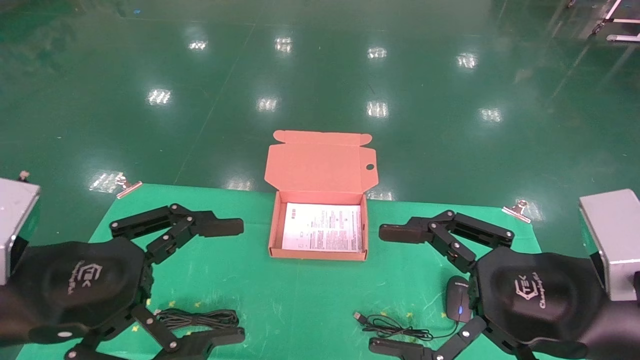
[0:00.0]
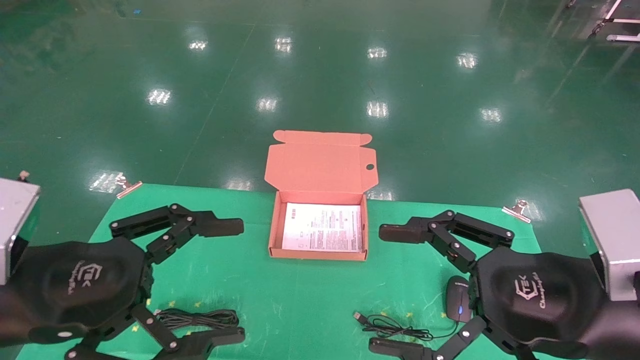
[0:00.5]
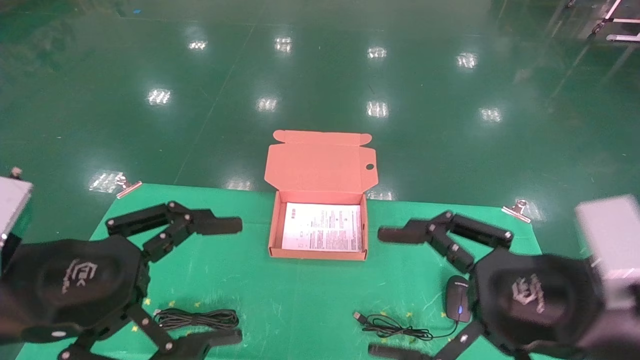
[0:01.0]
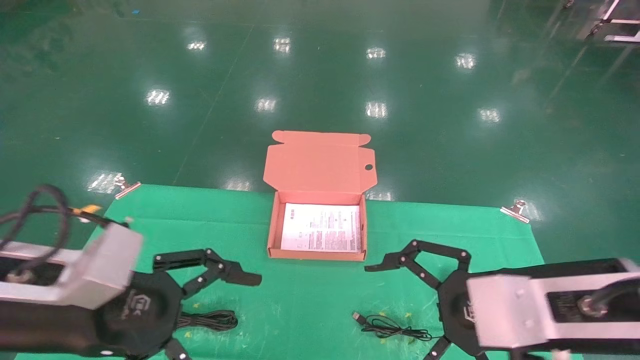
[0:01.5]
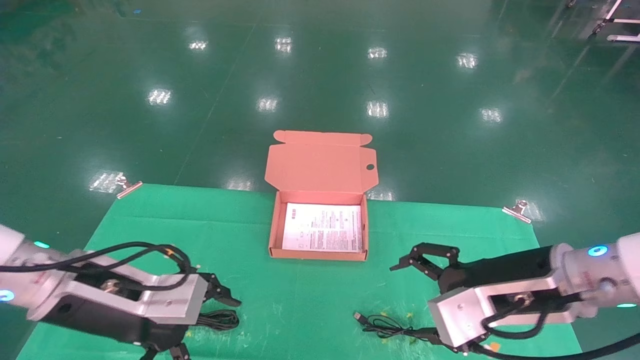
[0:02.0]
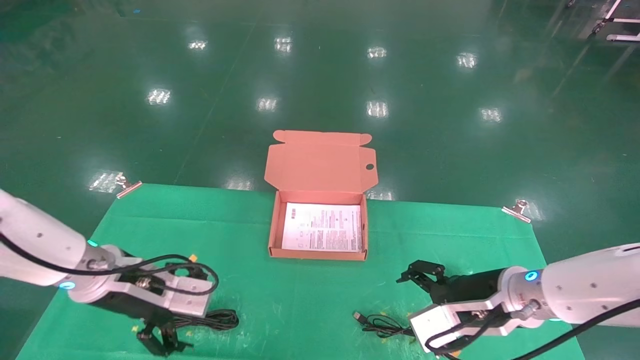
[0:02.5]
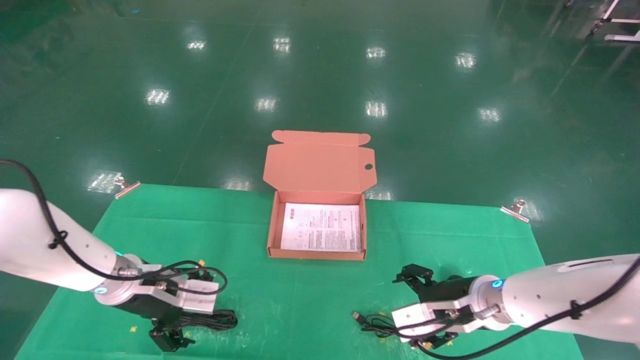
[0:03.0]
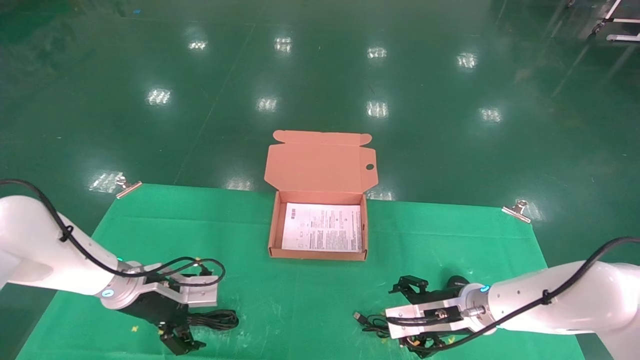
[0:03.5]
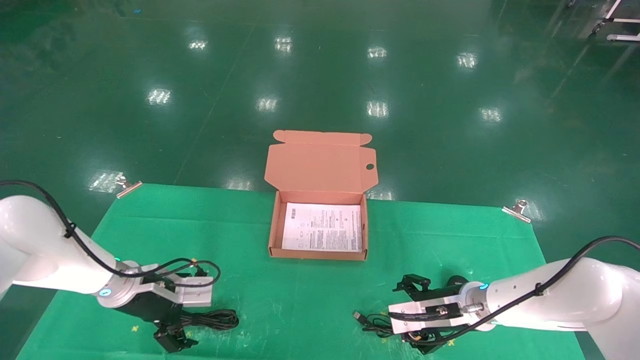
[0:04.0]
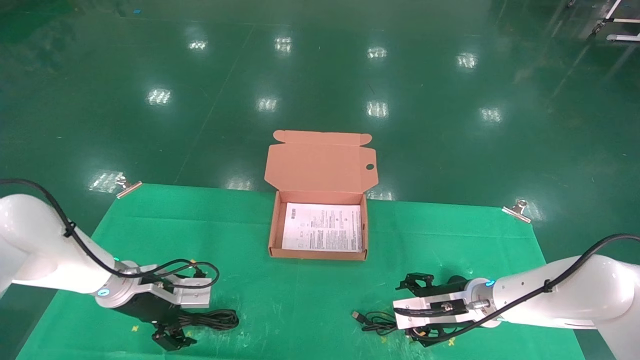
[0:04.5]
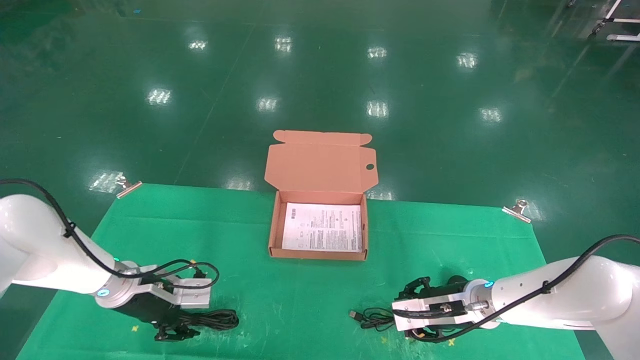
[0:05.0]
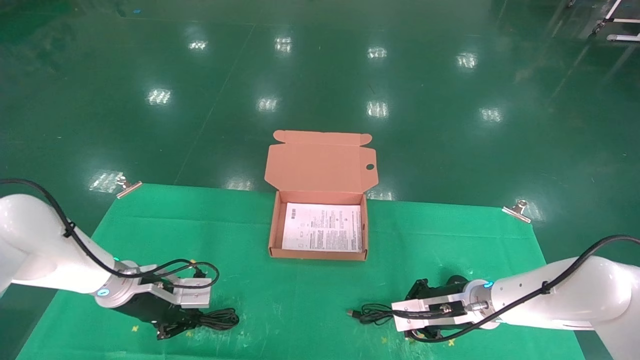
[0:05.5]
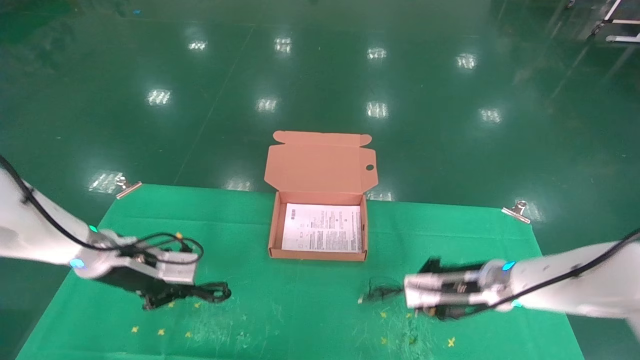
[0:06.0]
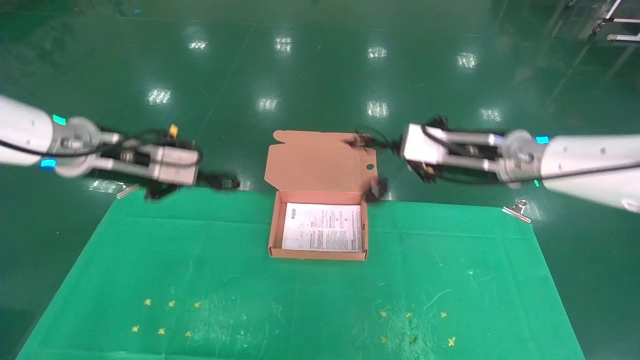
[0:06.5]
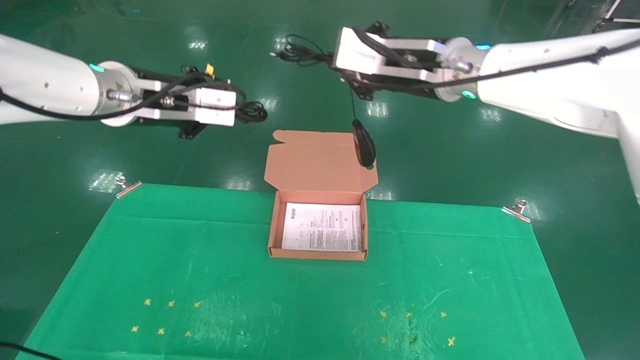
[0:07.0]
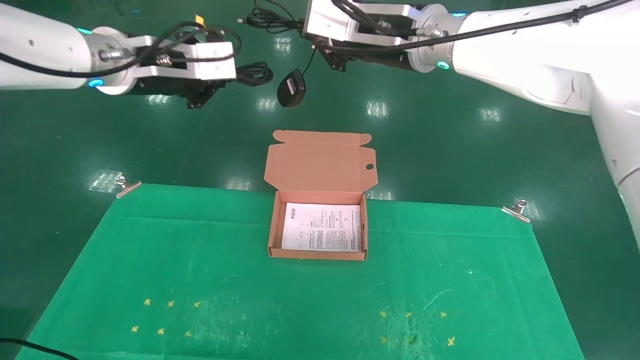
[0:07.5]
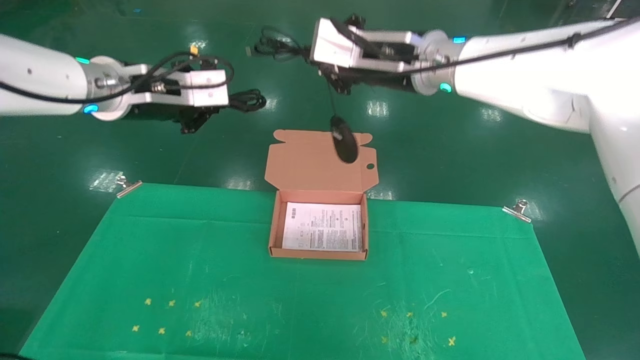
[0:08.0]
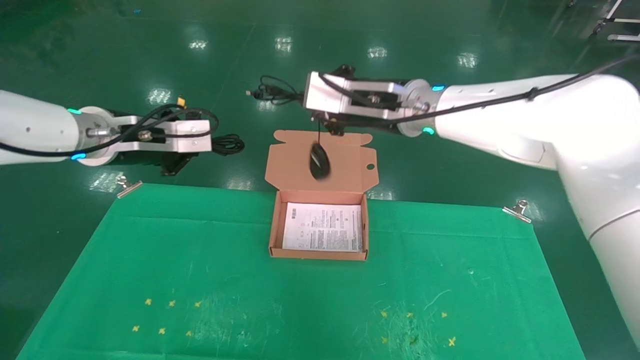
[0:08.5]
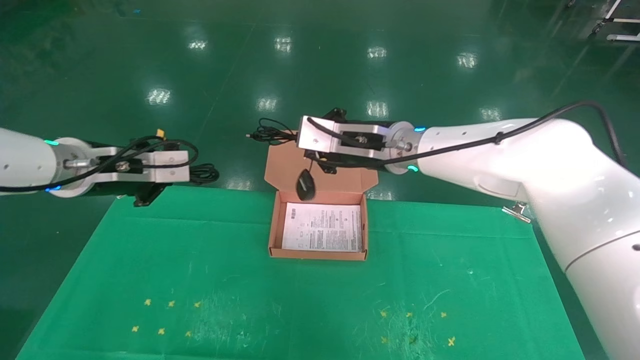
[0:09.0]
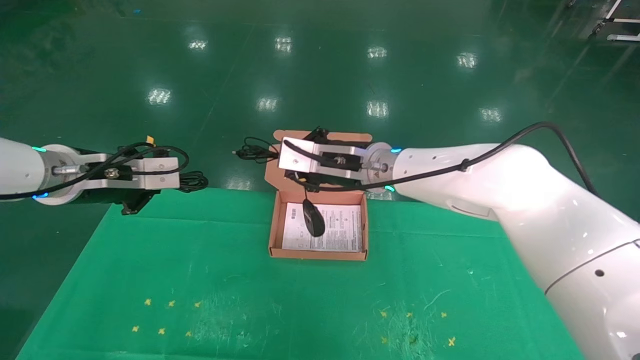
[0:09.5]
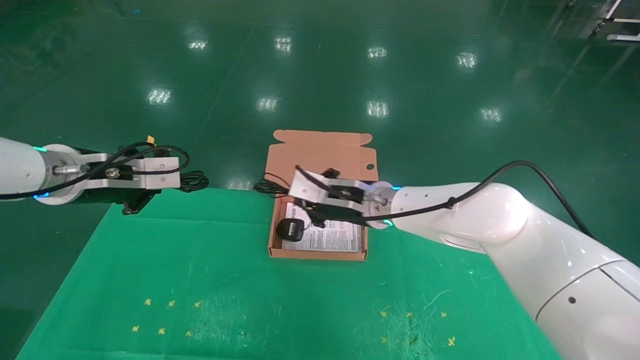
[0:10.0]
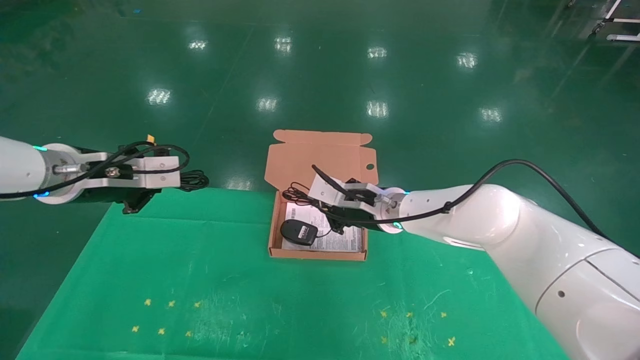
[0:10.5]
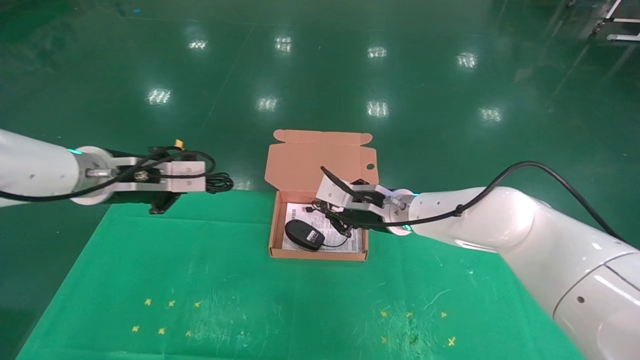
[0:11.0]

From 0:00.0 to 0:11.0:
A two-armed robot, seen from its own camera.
Task of the whole recording: grasp data cable left put into box grasp mouse right put into box.
Step, from 0:01.0 to 0:06.5: Grab and pick up both the mouse and power cord from the accessory packaging area at the same time.
From 0:00.0 to 0:02.0: The left gripper is displaced forward and downward by approximately 10 cm, while the right gripper travels forward by roughly 10 cm.
From 0:02.0 to 0:03.5: The right gripper travels downward and forward by roughly 15 cm. The left gripper is displaced forward and downward by some 15 cm.
From 0:03.5 to 0:05.5: The left gripper closes its fingers; the right gripper closes.
From 0:05.5 to 0:07.5: Both grippers move upward, some 35 cm.
From 0:07.5 to 0:09.0: The right gripper moves downward, about 15 cm, while the left gripper travels downward and to the left by about 15 cm.
From 0:09.0 to 0:11.0: The right gripper goes about 10 cm downward.

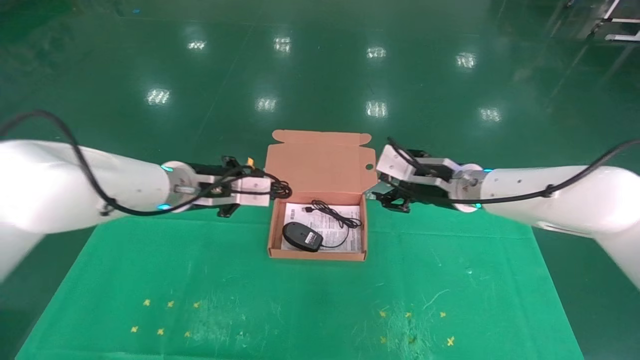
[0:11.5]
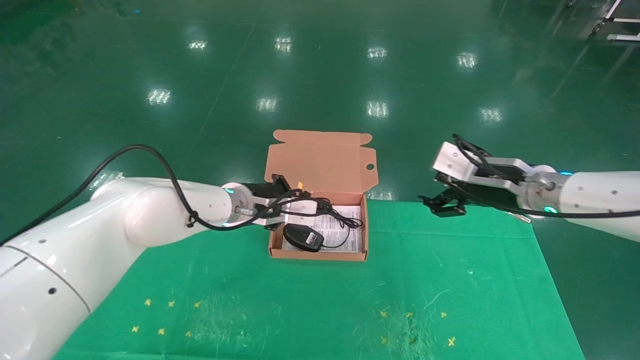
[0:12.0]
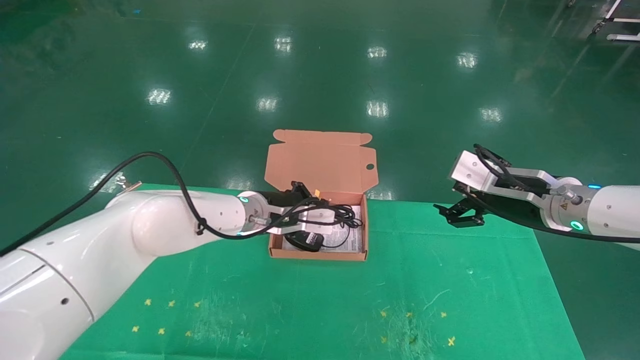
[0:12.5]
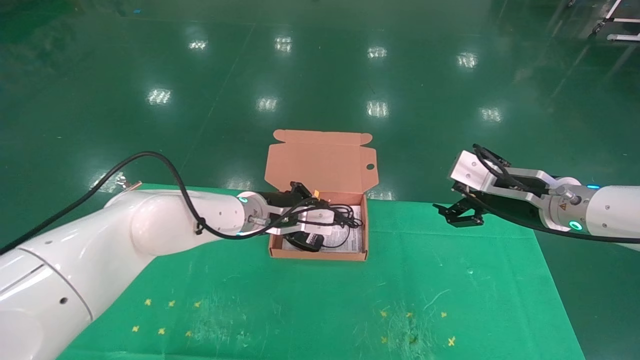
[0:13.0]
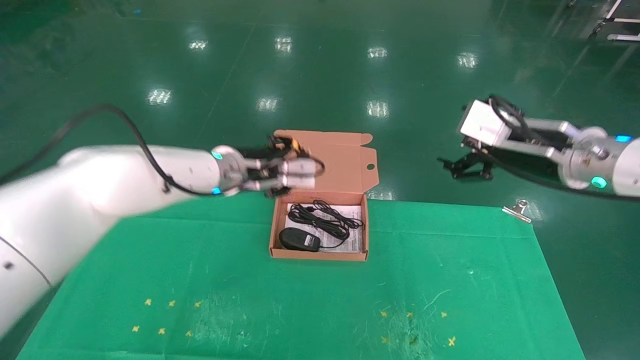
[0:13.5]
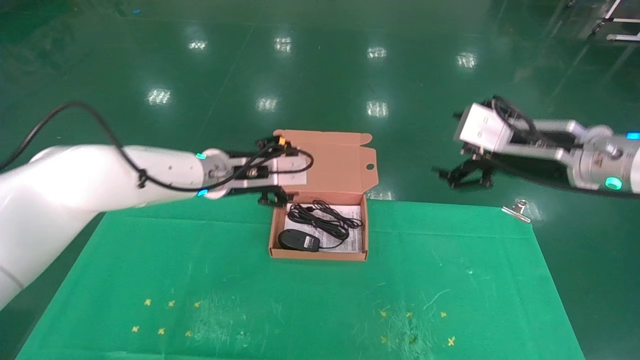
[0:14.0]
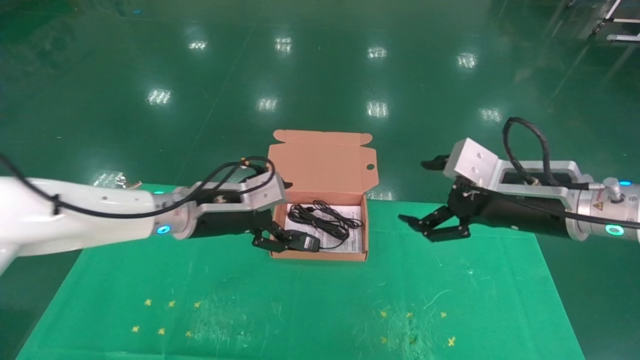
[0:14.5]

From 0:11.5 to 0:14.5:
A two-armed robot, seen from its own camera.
Task of the whole recording: grasp data cable left put into box grasp mouse right put into box.
Step, from 0:11.5 to 0:13.5: Place the mouse and power cord into the box.
From 0:11.5 to 0:13.0: The left gripper moves to the right and downward, approximately 10 cm. Meanwhile the right gripper moves to the right and backward, approximately 10 cm, and opens its fingers.
From 0:13.0 to 0:14.5: The left gripper goes about 10 cm to the left and backward, and opens its fingers; the right gripper shifts about 5 cm backward.

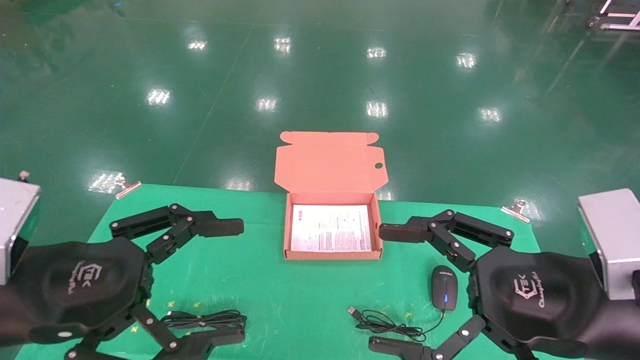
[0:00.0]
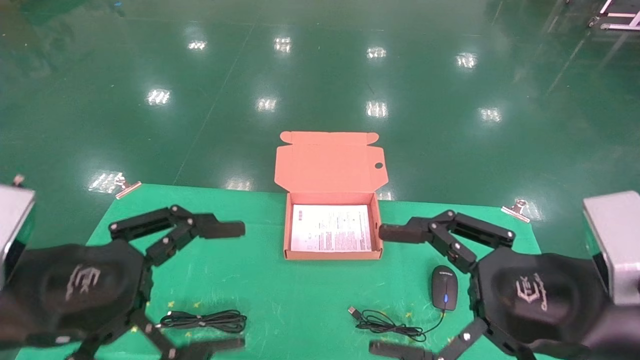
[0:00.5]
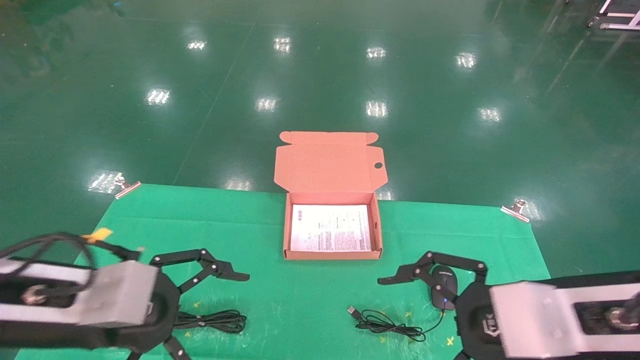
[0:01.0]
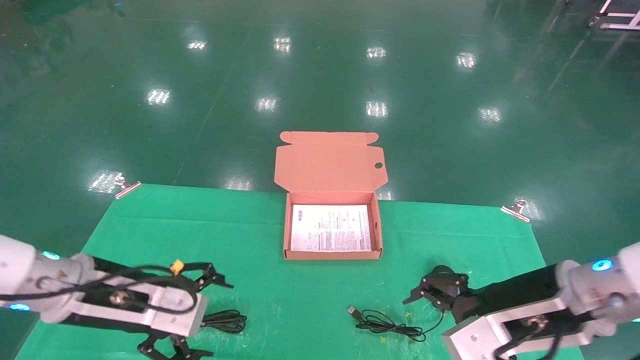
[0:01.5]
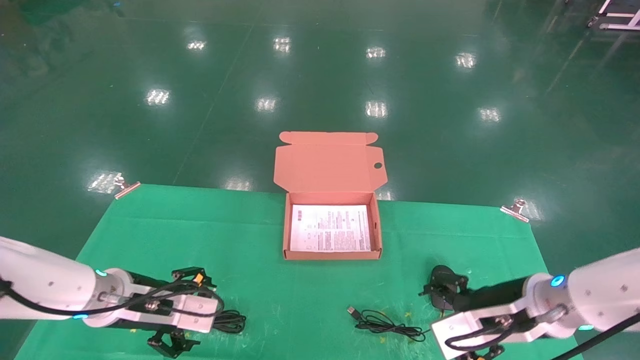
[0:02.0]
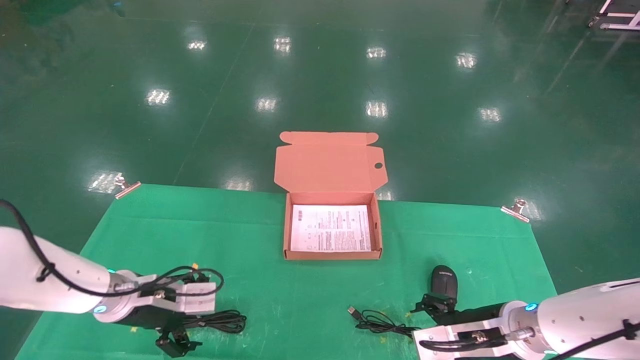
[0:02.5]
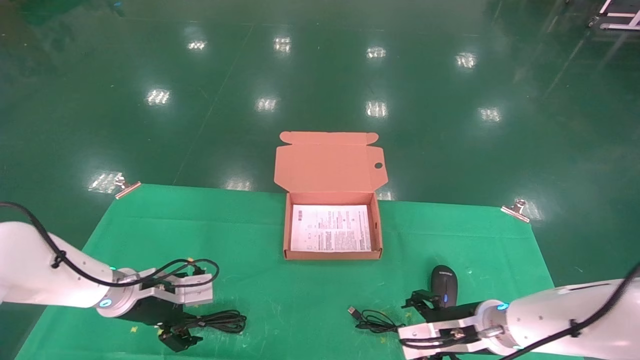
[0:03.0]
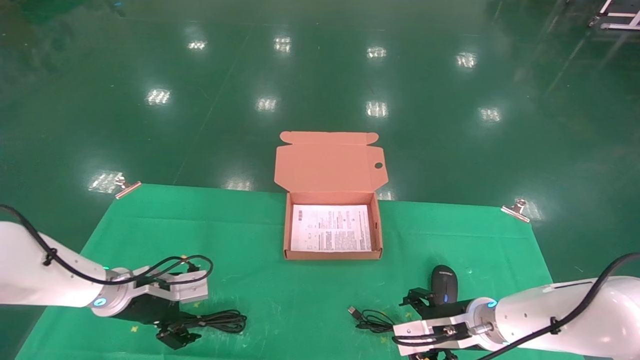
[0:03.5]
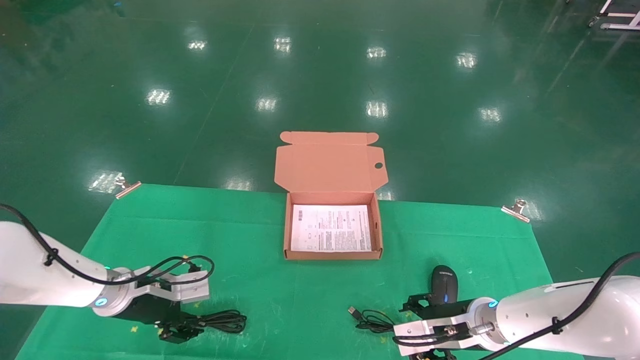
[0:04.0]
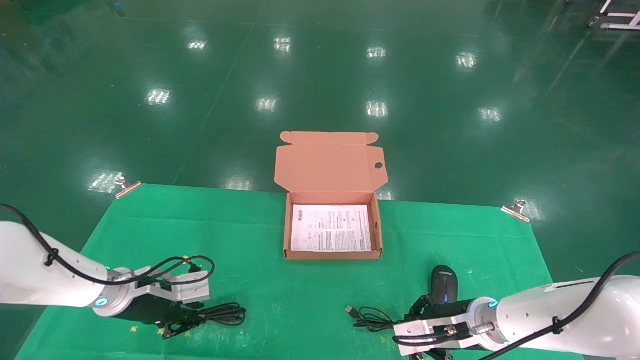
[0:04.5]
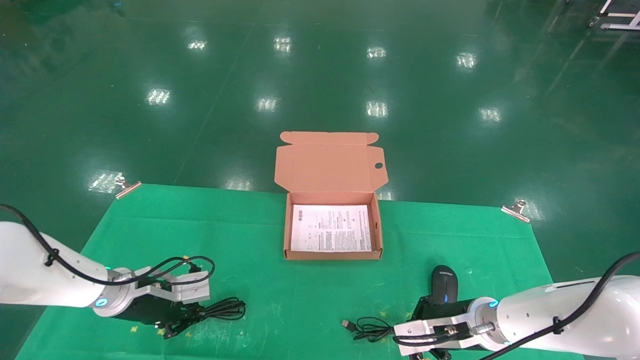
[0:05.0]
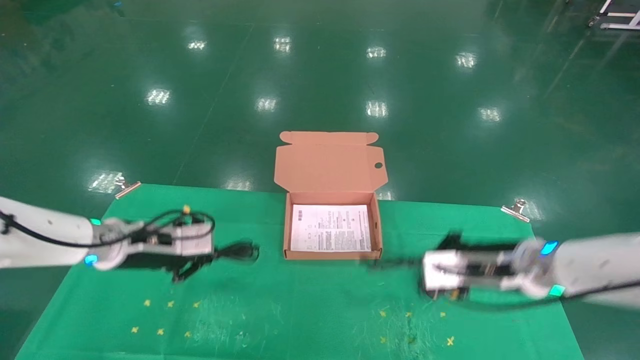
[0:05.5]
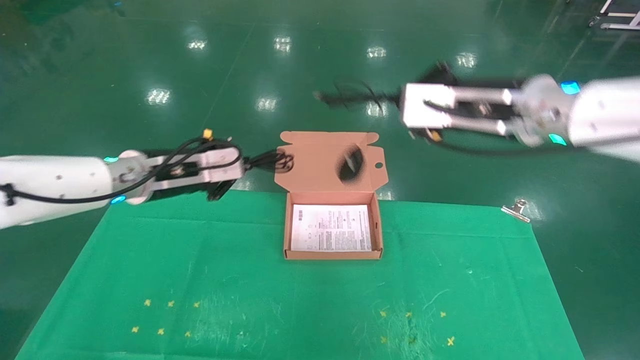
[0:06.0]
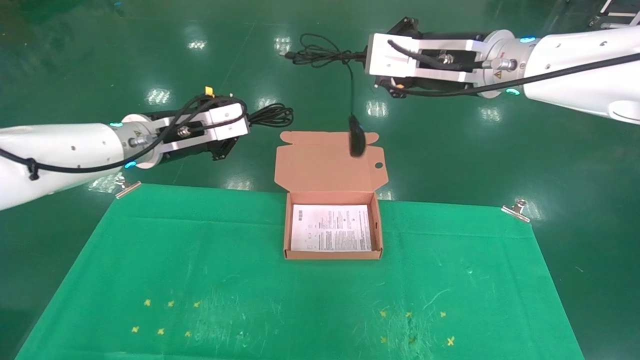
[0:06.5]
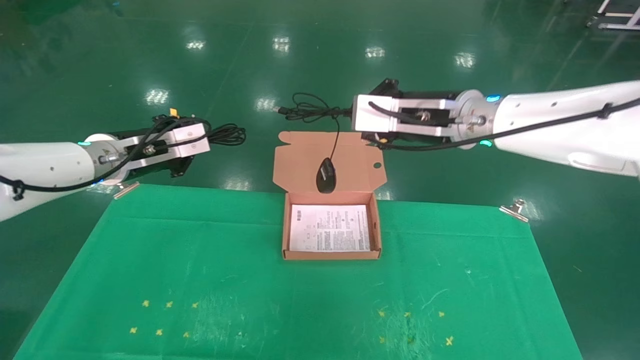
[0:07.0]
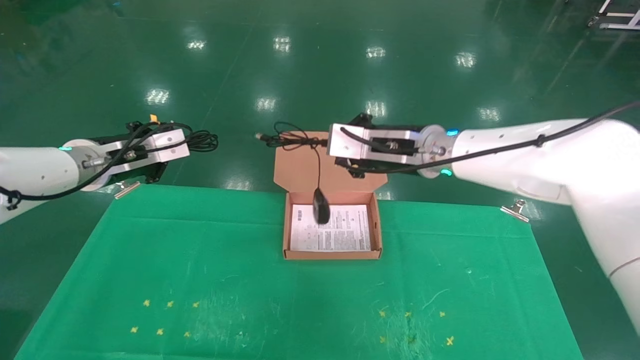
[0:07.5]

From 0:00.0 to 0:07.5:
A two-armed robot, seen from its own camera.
Task of the whole recording: grasp data cable left put into box grasp mouse right put into box.
Step, from 0:01.0 to 0:05.0: Grab and pick up both the mouse and power cord from the accessory packaging area at the same time.
From 0:00.0 to 0:02.0: The grippers both shift forward and downward by approximately 20 cm.
From 0:02.0 to 0:04.0: The right gripper is displaced downward and forward by roughly 10 cm. The left gripper heads forward, covering some 5 cm.
From 0:04.0 to 0:05.5: The grippers both shift upward by about 10 cm. The right gripper closes; the left gripper closes up.
From 0:05.5 to 0:07.5: The right gripper goes some 20 cm to the left, upward and forward, while the left gripper goes roughly 10 cm upward.
